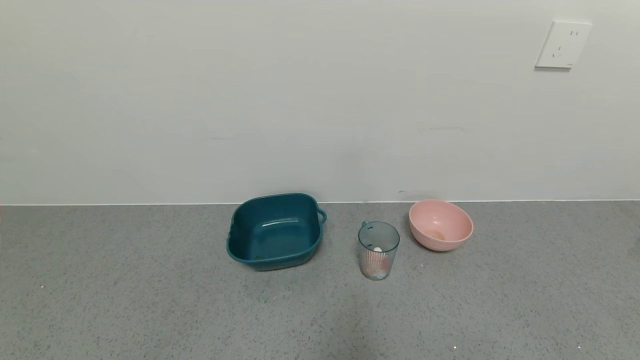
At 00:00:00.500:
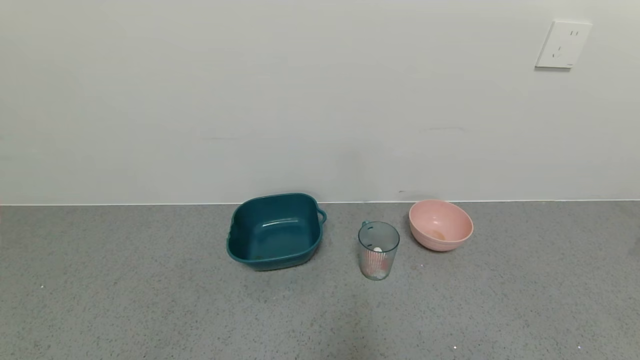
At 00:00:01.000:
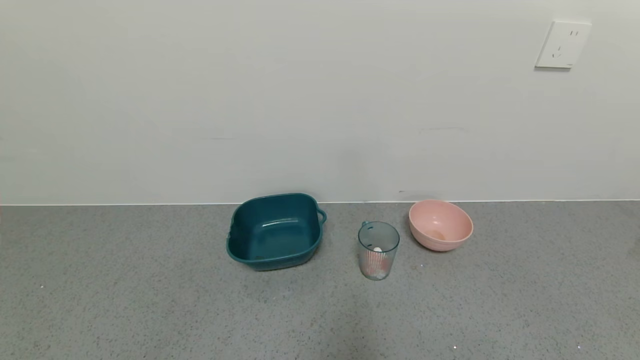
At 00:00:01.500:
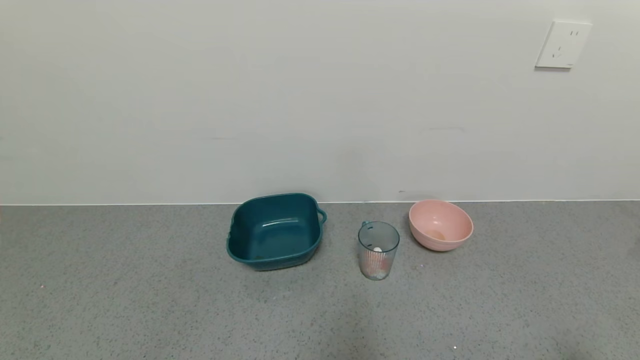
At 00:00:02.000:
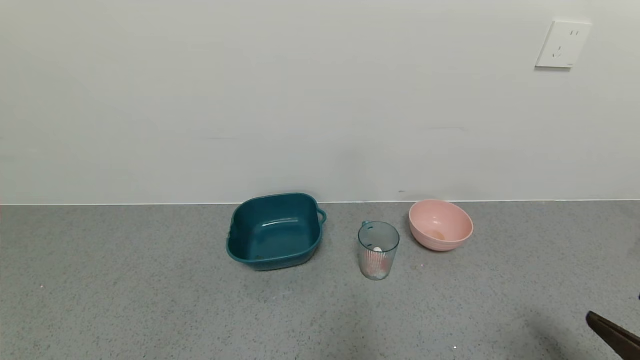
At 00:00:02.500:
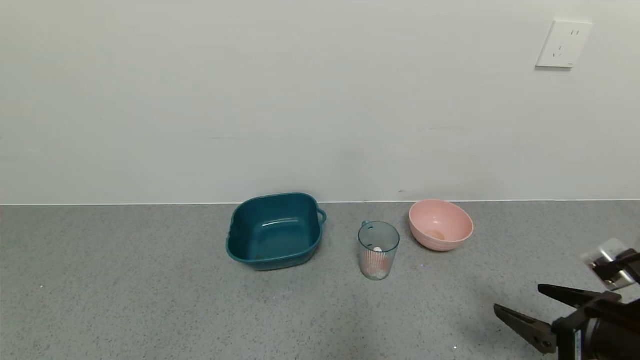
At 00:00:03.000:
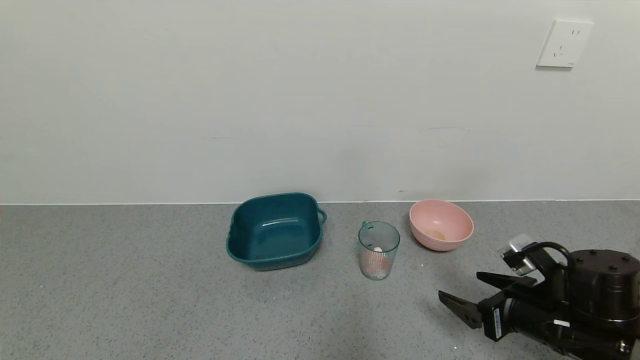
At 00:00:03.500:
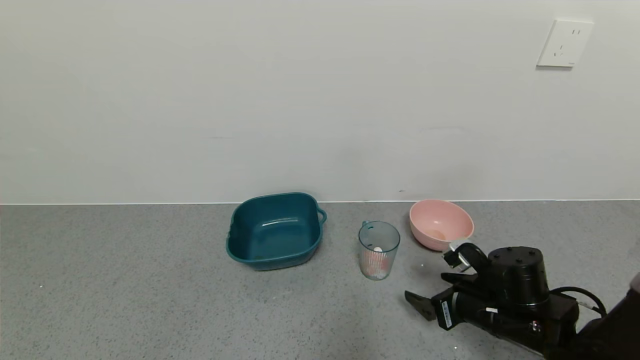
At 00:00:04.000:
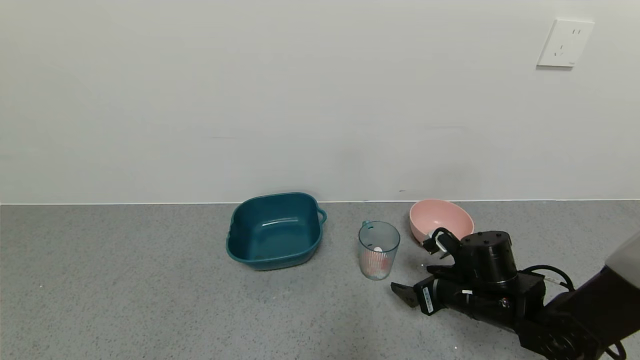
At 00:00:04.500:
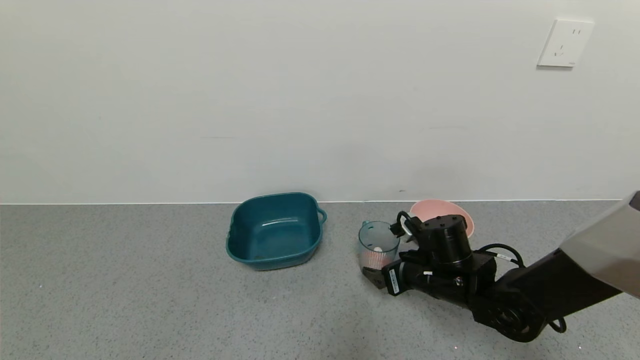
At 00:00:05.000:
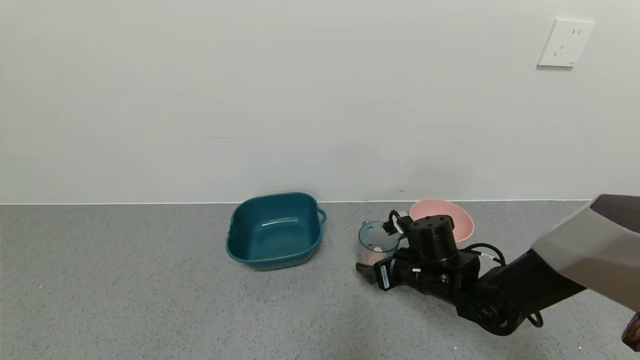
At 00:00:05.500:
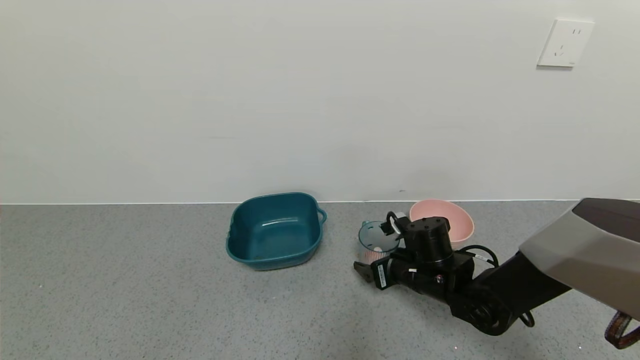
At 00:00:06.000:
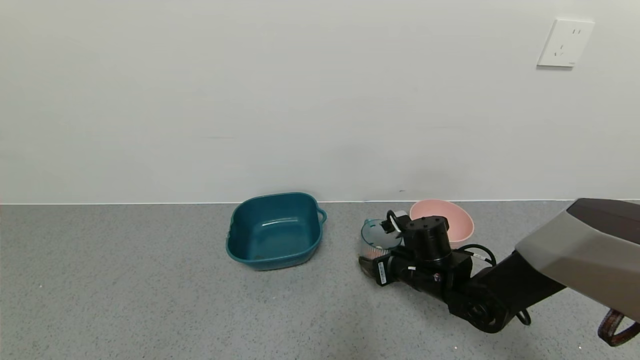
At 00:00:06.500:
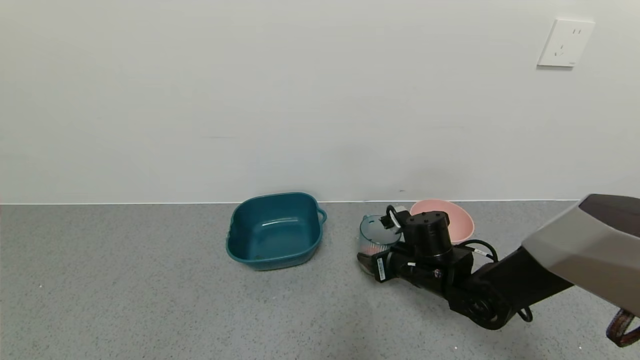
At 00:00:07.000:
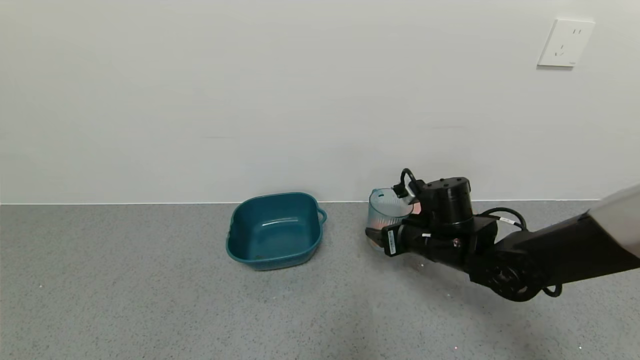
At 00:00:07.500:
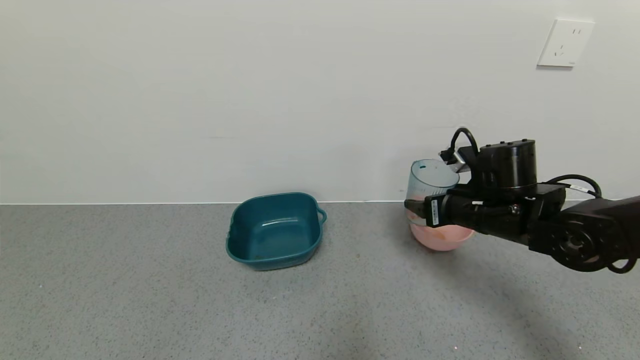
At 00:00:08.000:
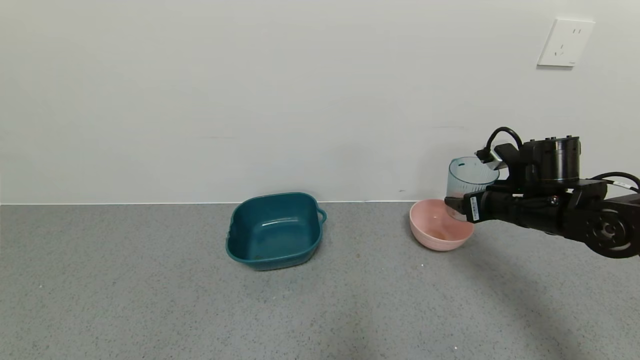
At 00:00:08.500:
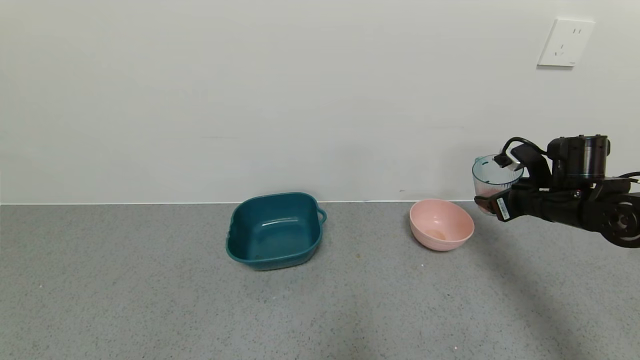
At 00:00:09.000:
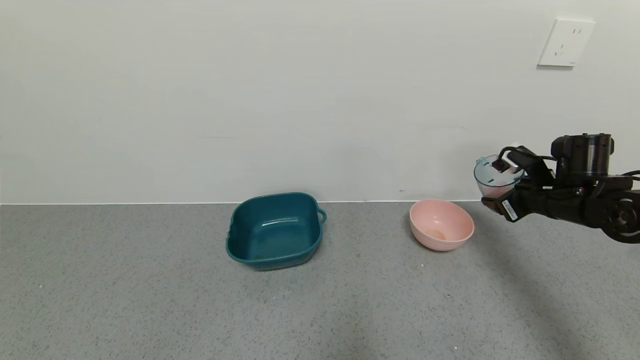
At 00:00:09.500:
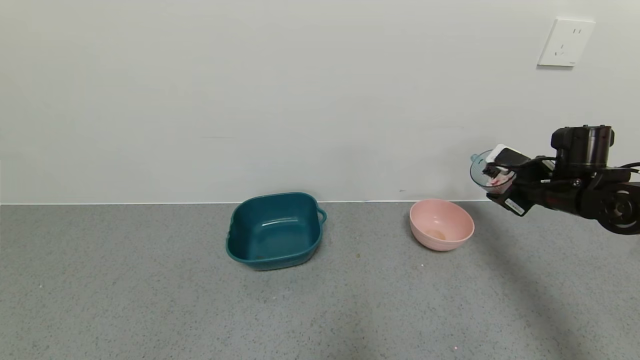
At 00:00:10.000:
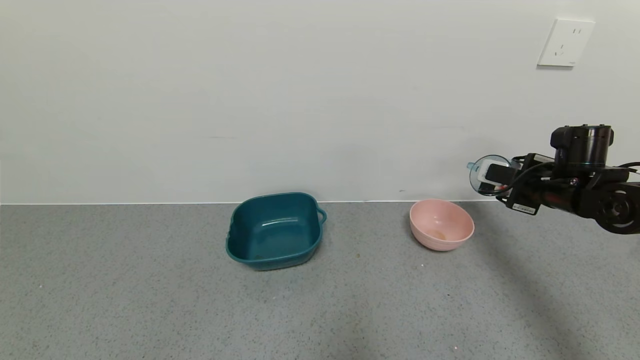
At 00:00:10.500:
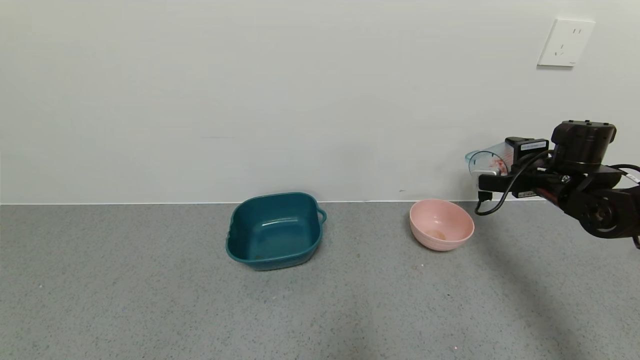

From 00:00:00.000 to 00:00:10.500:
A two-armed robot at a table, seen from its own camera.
Task of the whole recording: use a gripper to pick up the cup and pour the solid into a bowl or tray.
Step, from 00:00:00.000 to 00:00:06.000: Grasp the glass of shrimp with the right gripper.
From 00:00:00.000 to 00:00:02.000: The right gripper is displaced forward and upward by some 15 cm.
From 00:00:02.000 to 00:00:04.000: The right gripper is displaced forward, to the left and downward by roughly 25 cm.
From 00:00:04.000 to 00:00:06.500: The right gripper heads to the left and forward, covering about 10 cm, and closes up.
From 00:00:06.500 to 00:00:08.500: The right gripper travels to the right and upward by approximately 25 cm.
